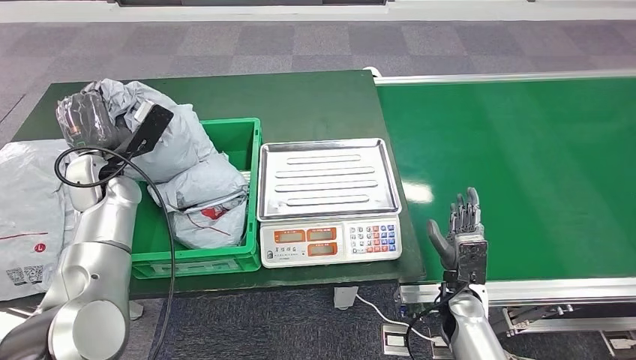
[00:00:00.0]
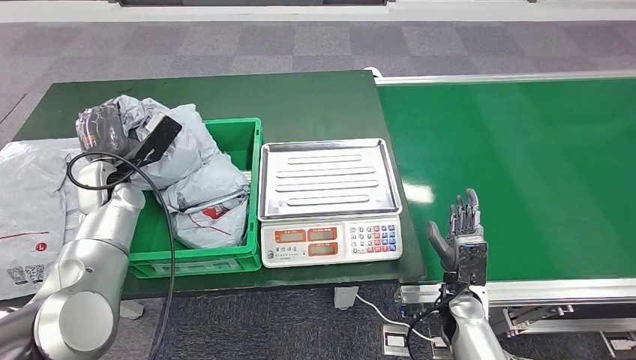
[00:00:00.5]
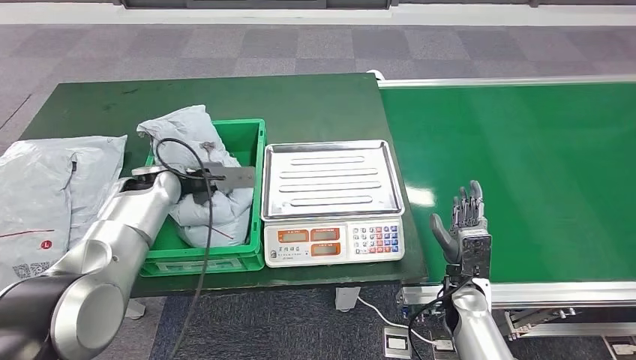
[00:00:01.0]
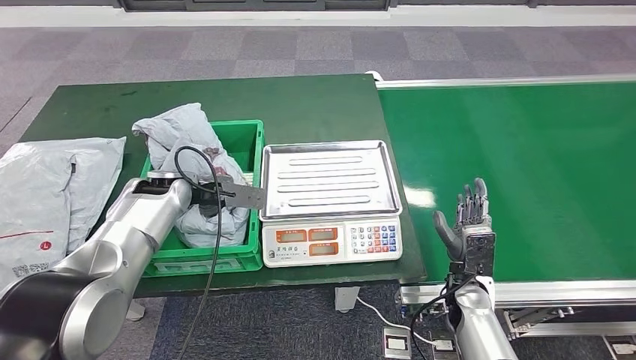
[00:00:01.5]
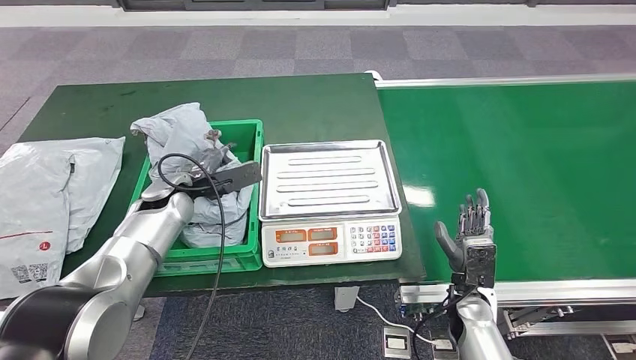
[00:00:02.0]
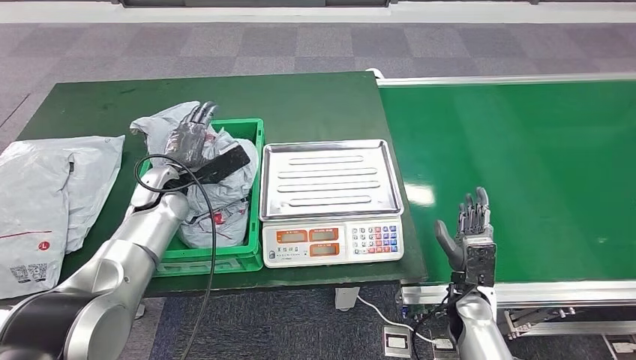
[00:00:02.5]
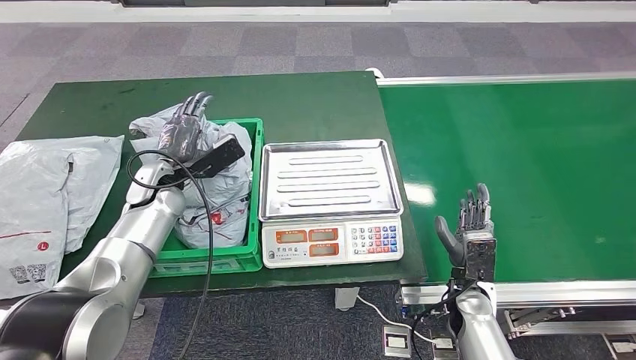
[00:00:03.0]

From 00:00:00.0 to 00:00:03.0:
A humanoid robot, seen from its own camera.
Step, from 00:00:00.0 to 00:00:03.0: Place the parcel into the delivery box.
